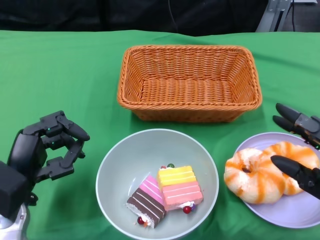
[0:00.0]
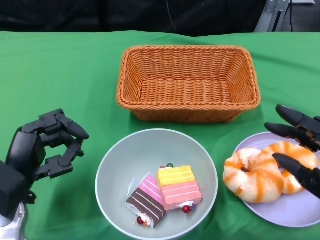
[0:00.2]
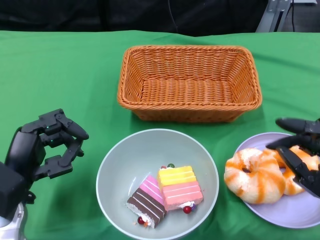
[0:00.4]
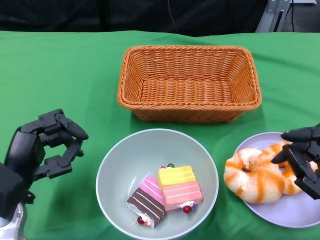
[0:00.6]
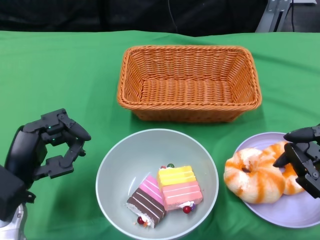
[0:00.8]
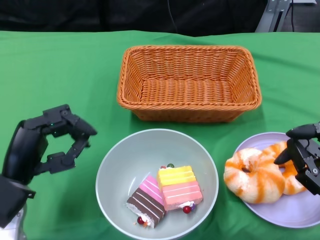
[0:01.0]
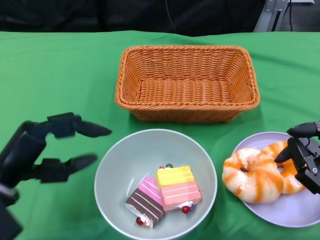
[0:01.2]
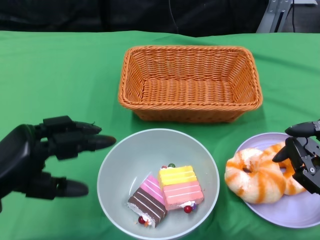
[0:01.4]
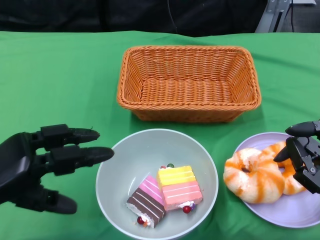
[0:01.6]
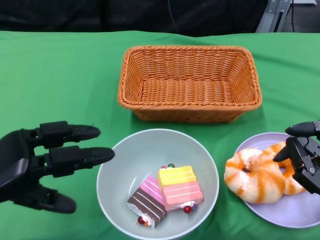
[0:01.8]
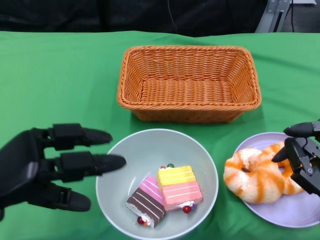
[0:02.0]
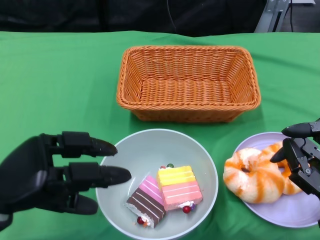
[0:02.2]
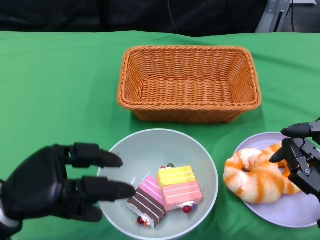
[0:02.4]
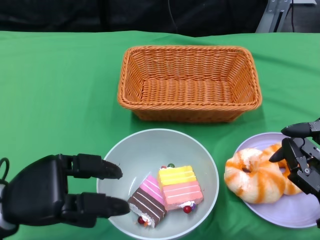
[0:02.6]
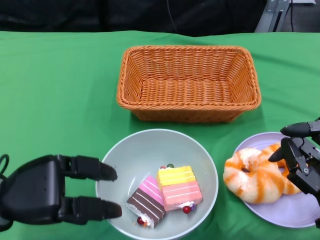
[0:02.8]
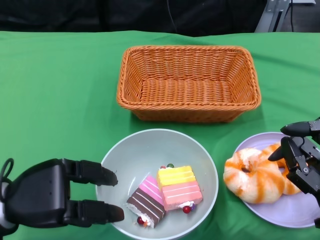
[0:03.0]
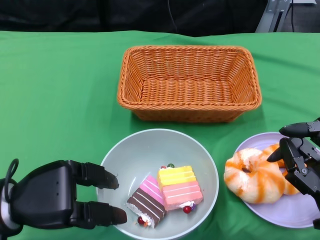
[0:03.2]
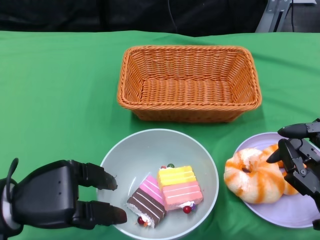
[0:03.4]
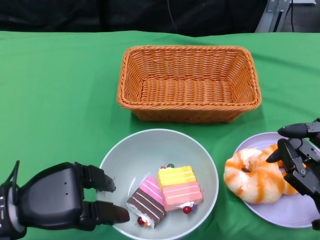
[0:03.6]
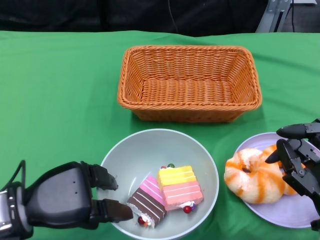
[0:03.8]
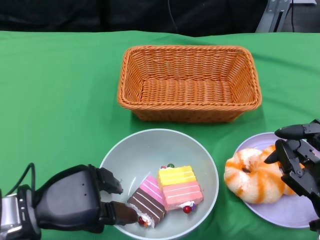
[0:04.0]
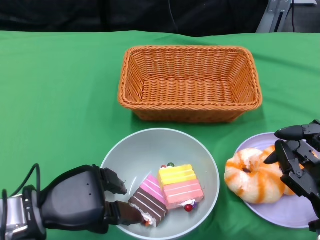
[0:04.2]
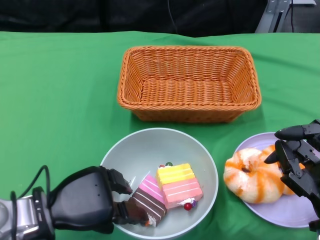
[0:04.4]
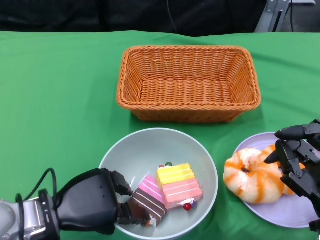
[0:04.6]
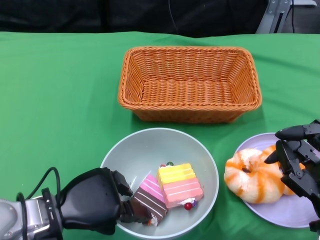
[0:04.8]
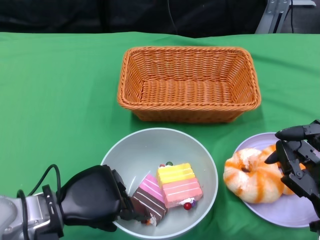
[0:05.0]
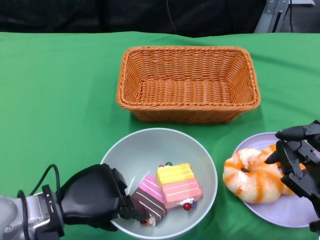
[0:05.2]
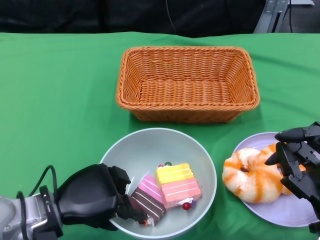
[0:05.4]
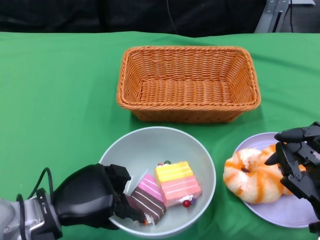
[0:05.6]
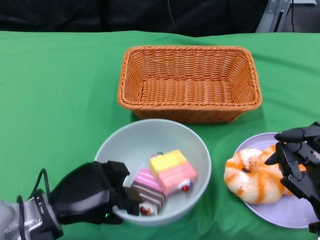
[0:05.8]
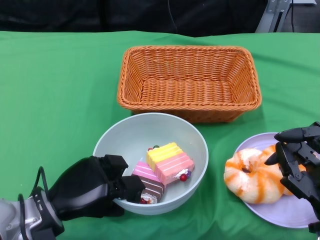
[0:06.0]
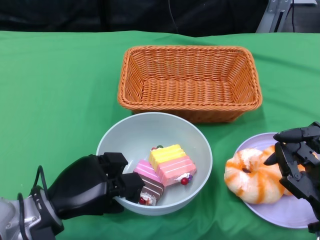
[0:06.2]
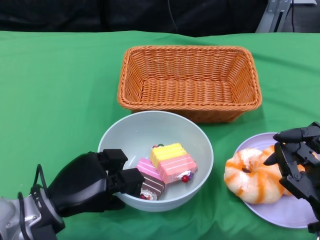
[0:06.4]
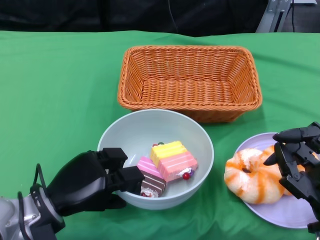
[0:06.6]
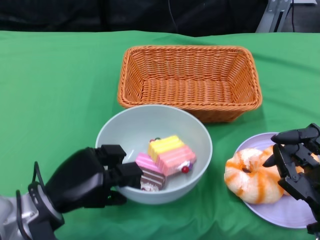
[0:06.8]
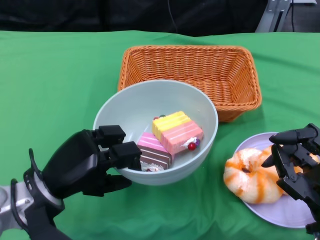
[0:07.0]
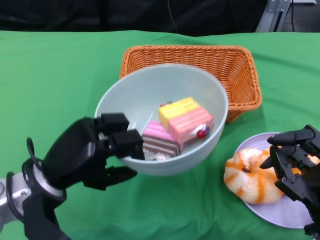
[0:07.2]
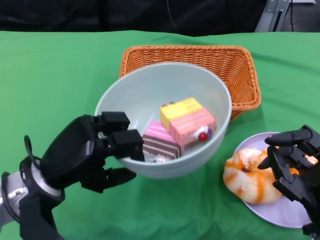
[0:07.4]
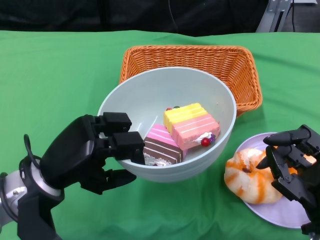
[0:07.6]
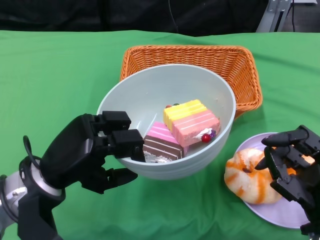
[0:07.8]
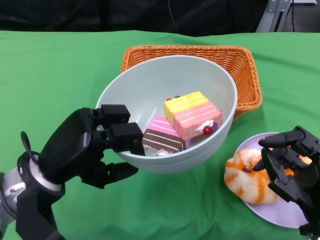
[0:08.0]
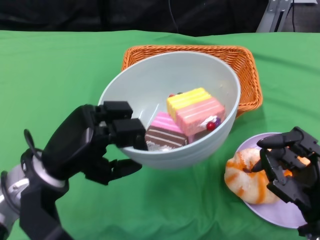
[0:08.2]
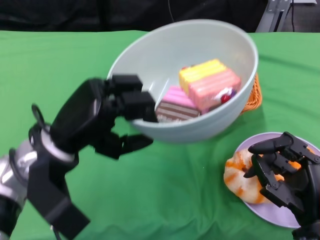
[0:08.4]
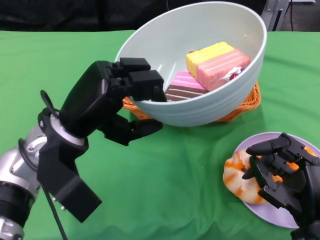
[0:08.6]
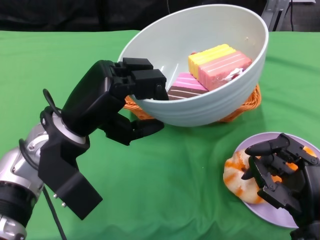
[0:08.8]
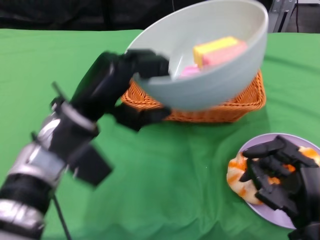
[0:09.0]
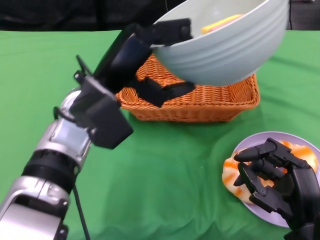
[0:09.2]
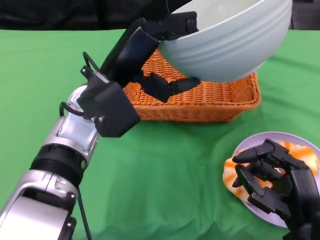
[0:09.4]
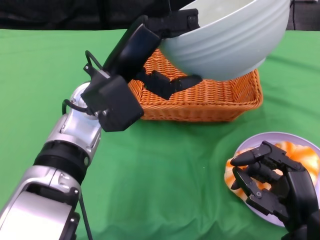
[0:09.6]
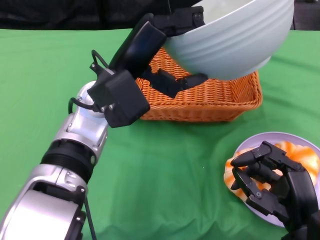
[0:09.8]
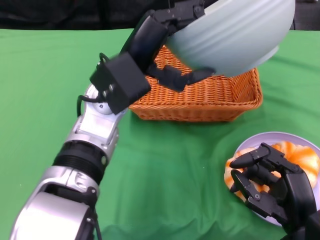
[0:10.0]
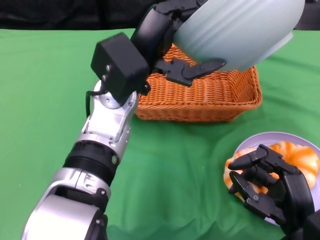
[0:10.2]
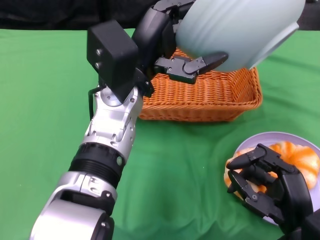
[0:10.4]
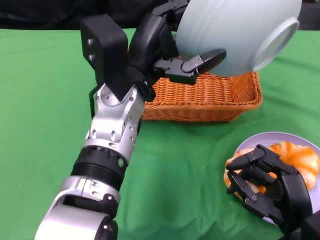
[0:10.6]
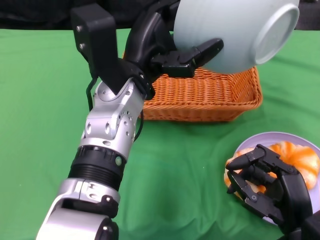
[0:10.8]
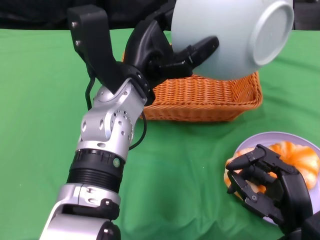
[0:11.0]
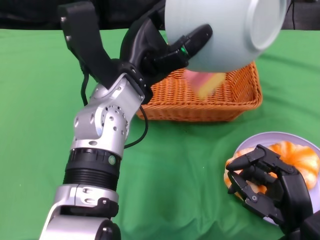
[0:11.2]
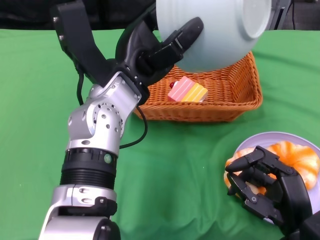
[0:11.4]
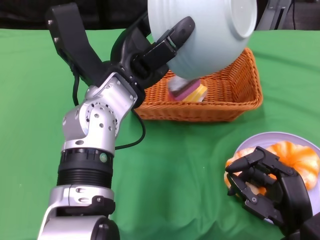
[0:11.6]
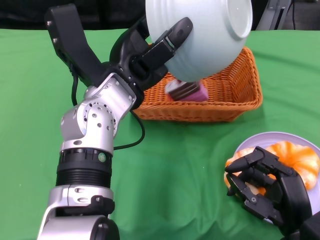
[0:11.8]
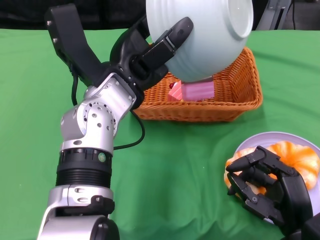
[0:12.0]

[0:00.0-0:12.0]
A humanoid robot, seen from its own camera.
Step, 0:00.4 to 0:08.0: Grasp the bowl with the left gripper.
0:00.0 to 0:01.6: The left hand is displaced upward by roughly 5 cm.
0:01.6 to 0:03.0: The left hand moves roughly 5 cm.
0:03.0 to 0:04.4: There are only small adjustments of the hands.
0:06.0 to 0:07.6: The left hand heads upward, covering about 5 cm.
0:07.6 to 0:09.0: The left hand is displaced upward by approximately 5 cm.
0:09.0 to 0:10.4: The left hand moves to the right, some 10 cm.

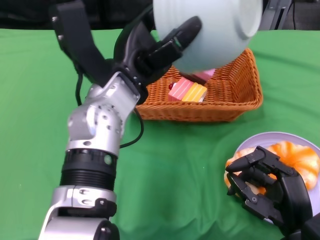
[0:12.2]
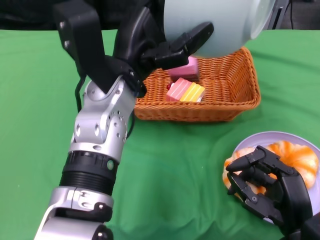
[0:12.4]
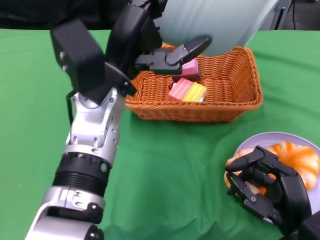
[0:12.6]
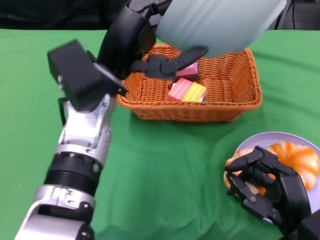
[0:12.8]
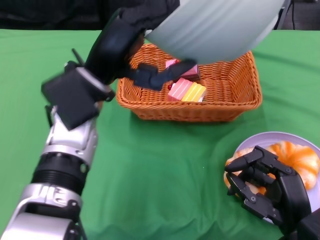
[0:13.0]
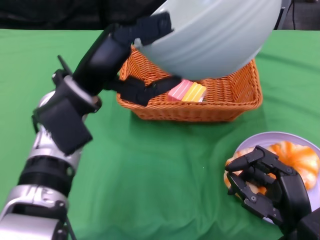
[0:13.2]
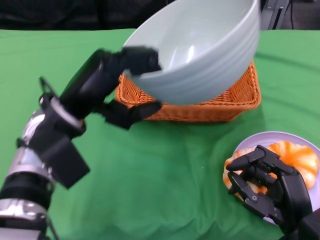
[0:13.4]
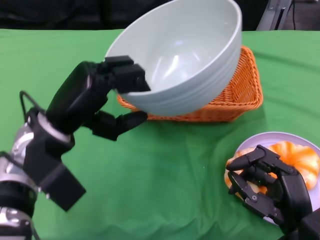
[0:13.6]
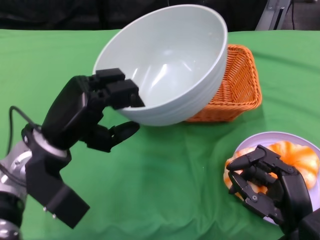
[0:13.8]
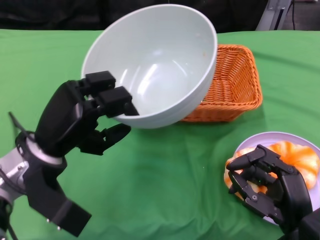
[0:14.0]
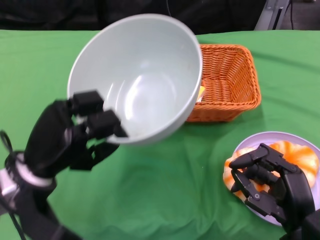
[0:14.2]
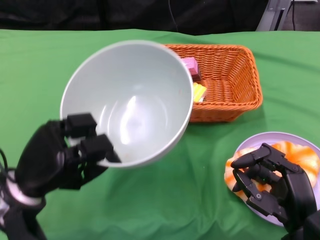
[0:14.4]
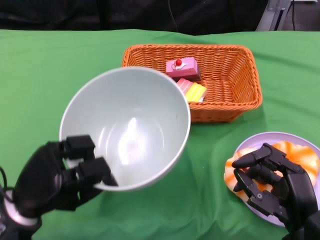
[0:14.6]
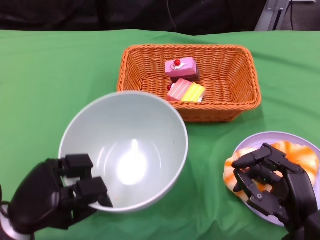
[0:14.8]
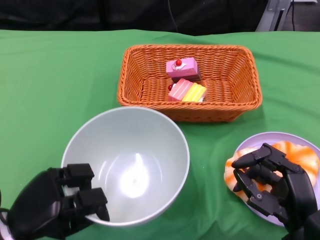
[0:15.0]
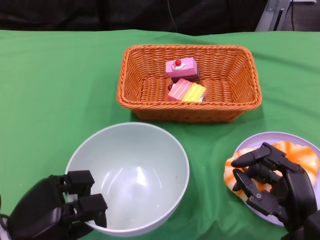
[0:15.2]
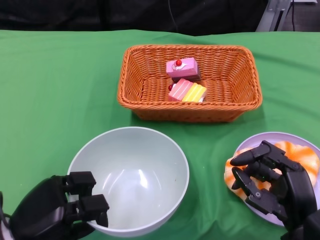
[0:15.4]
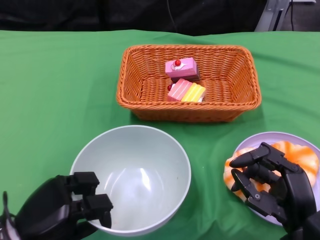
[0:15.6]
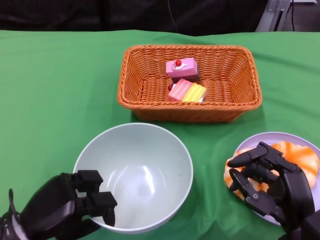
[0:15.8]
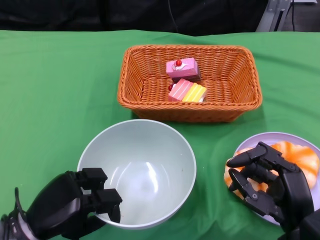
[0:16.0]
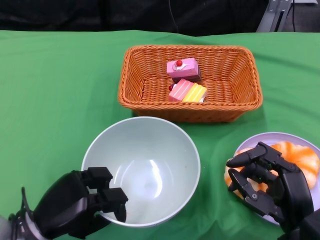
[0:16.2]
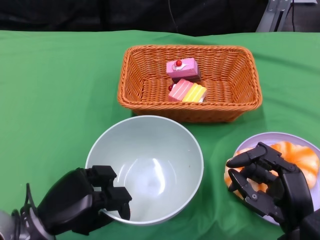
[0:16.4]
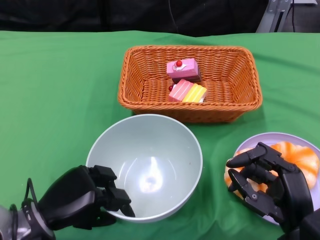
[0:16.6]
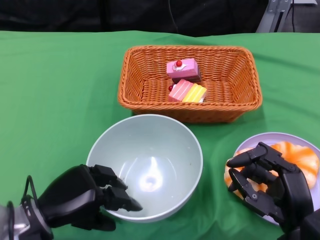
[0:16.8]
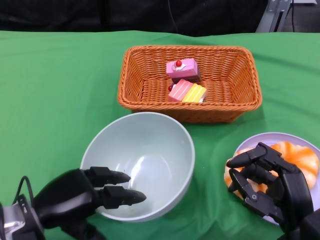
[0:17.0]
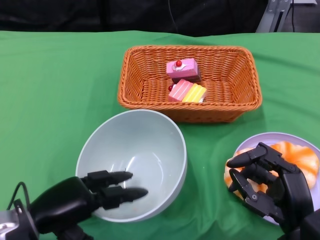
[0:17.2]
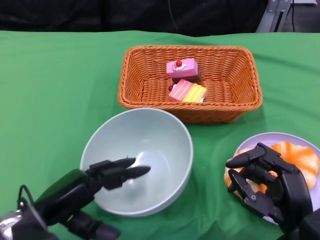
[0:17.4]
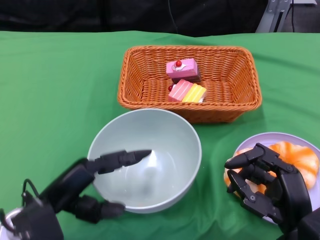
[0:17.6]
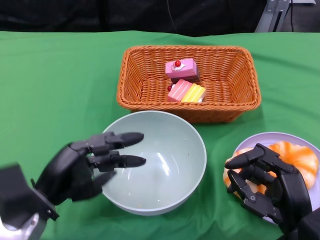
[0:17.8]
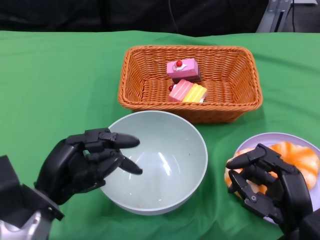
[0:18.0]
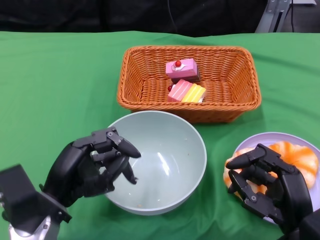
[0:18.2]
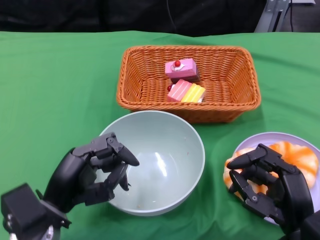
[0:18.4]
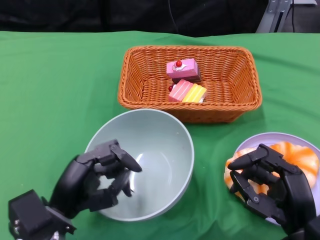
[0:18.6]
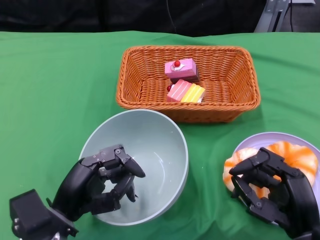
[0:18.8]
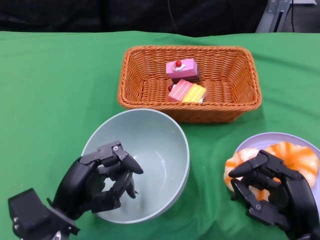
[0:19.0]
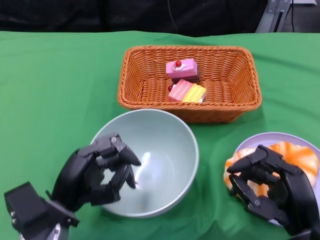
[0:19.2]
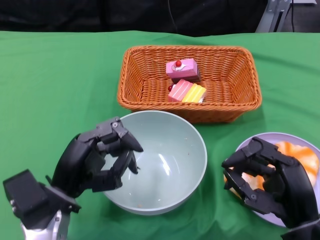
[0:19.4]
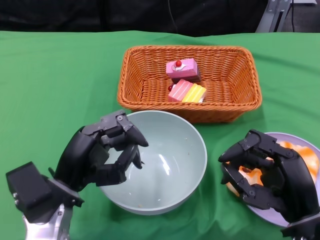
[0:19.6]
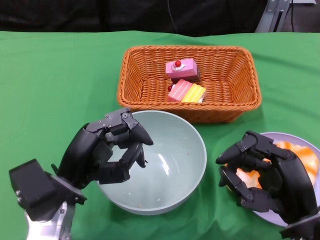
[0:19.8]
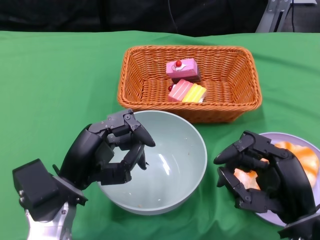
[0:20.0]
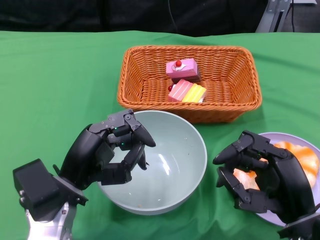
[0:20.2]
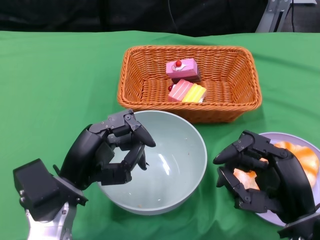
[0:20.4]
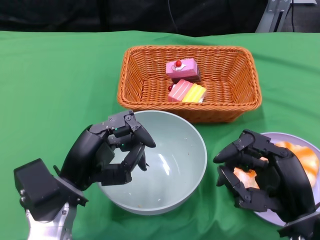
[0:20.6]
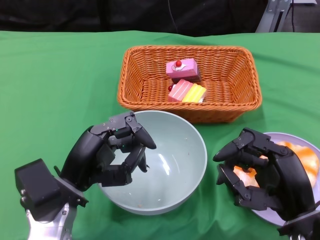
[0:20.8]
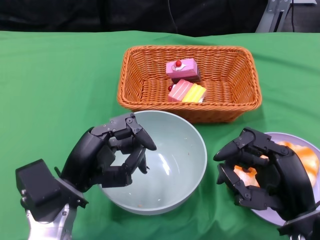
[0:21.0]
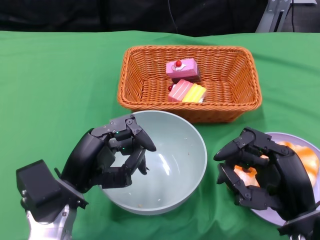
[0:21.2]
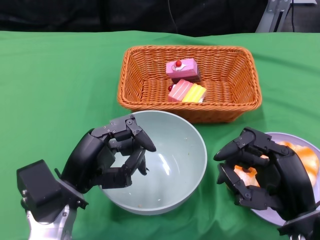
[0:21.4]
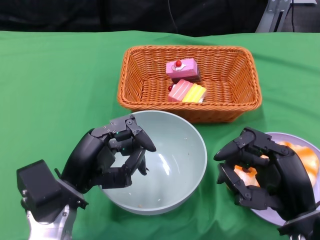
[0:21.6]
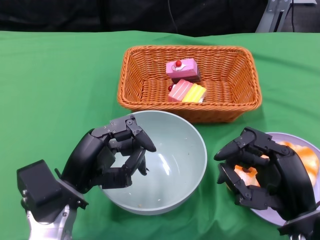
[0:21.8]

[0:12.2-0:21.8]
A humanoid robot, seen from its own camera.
Step, 0:12.6 to 0:18.2: Place the bowl on the table with the left gripper.
0:12.2 to 0:13.8: The left hand is displaced to the left and downward by roughly 15 cm.
0:13.8 to 0:15.4: The left hand is displaced downward, backward and to the left by about 15 cm.
0:15.4 to 0:17.0: The hands move only a little.
0:18.6 to 0:20.2: The left hand ends up roughly 5 cm from where it was.
0:20.2 to 0:21.8: The two hands keep their place.

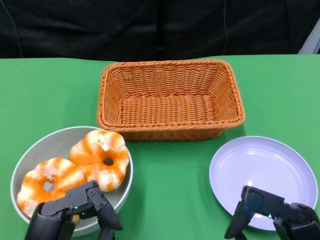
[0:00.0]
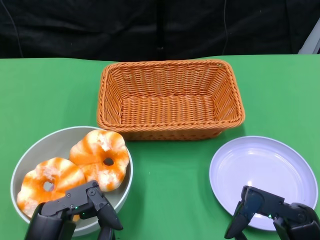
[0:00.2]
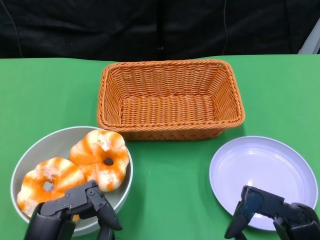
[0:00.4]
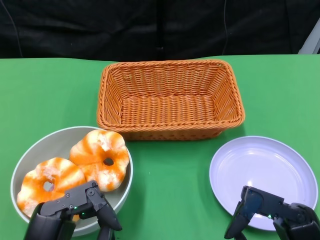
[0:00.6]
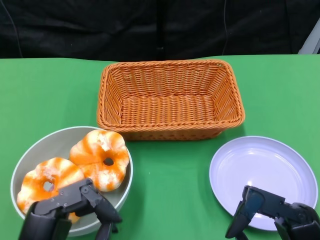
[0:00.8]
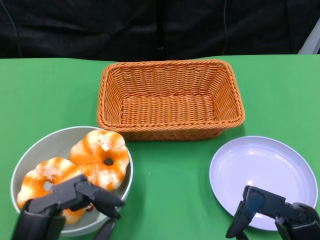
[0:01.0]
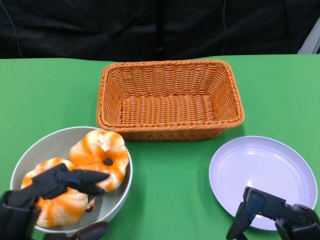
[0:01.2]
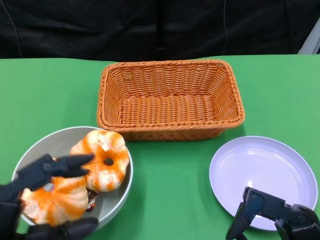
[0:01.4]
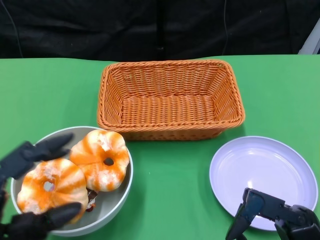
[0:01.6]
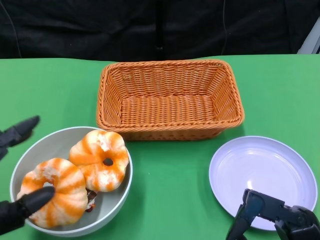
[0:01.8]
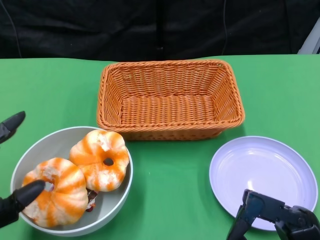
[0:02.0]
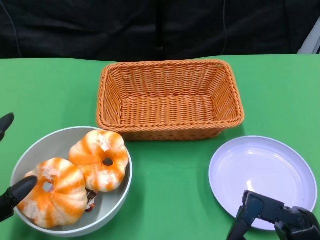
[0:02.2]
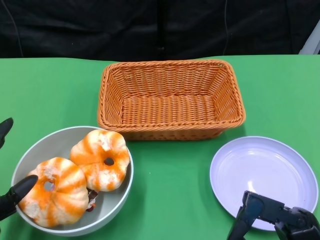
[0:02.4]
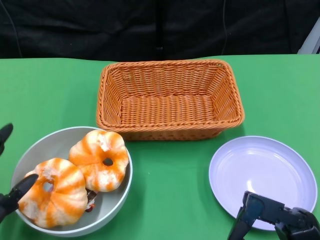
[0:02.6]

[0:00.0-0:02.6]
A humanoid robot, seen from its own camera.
0:01.2 to 0:02.6: The left hand is displaced to the left by approximately 5 cm.
